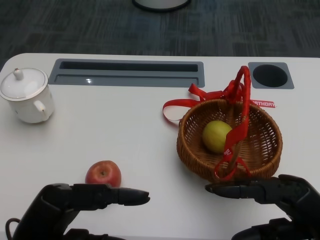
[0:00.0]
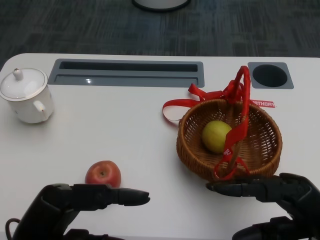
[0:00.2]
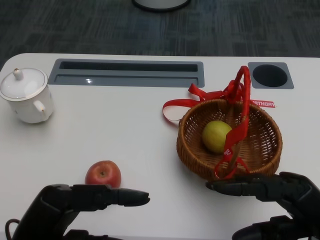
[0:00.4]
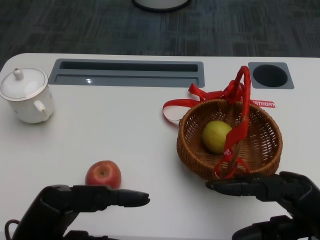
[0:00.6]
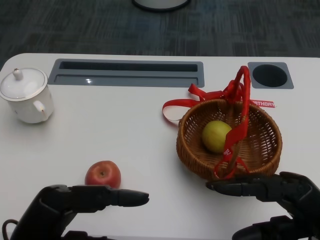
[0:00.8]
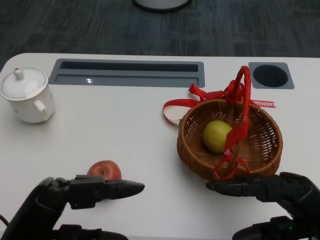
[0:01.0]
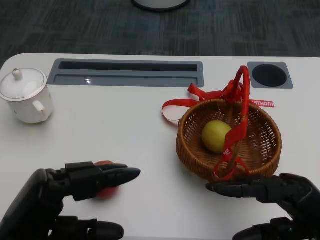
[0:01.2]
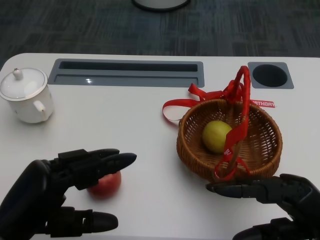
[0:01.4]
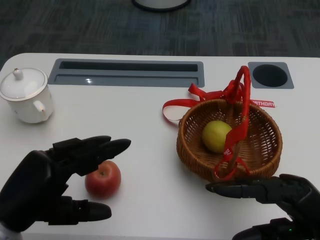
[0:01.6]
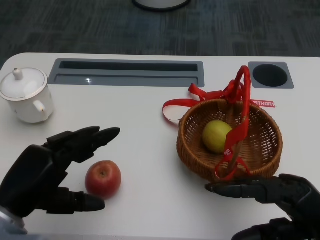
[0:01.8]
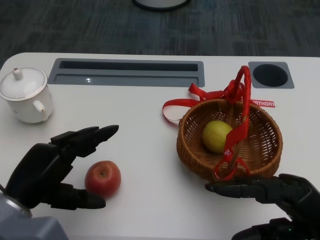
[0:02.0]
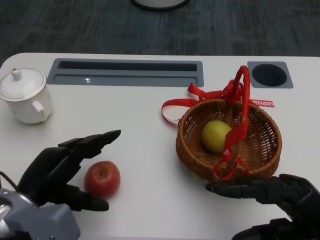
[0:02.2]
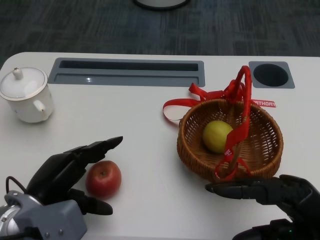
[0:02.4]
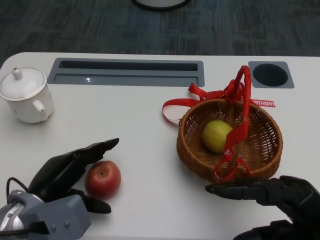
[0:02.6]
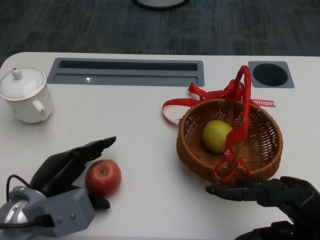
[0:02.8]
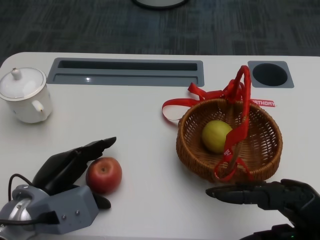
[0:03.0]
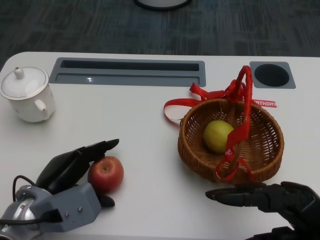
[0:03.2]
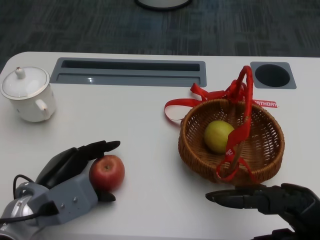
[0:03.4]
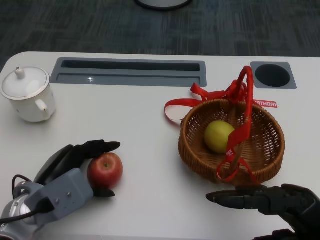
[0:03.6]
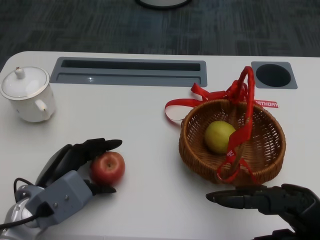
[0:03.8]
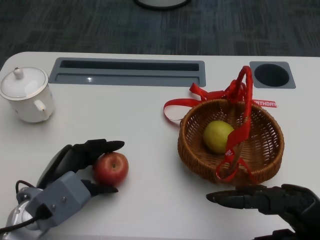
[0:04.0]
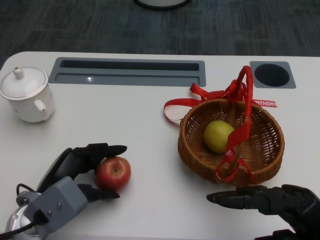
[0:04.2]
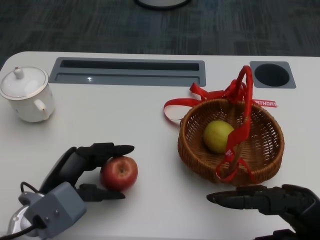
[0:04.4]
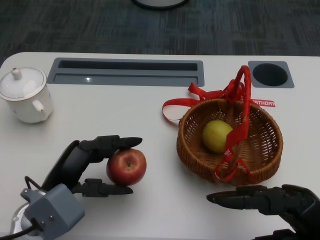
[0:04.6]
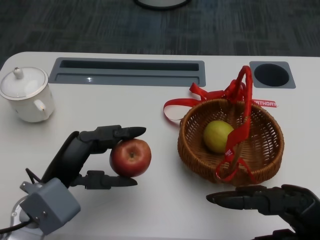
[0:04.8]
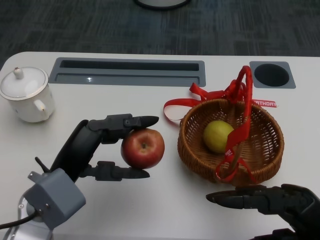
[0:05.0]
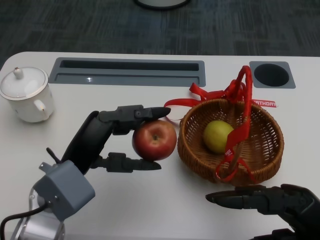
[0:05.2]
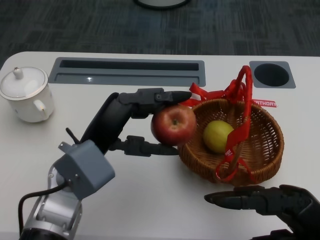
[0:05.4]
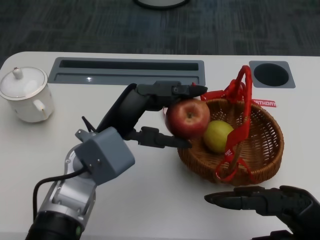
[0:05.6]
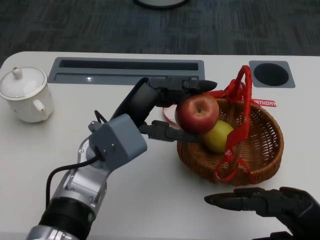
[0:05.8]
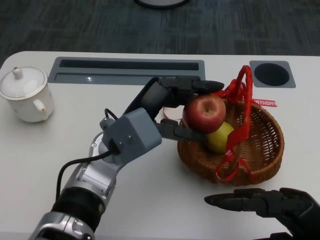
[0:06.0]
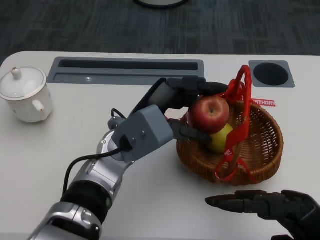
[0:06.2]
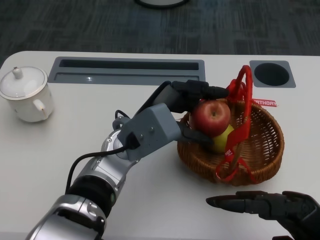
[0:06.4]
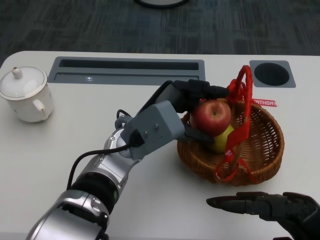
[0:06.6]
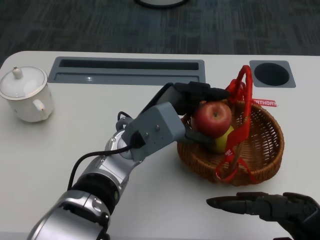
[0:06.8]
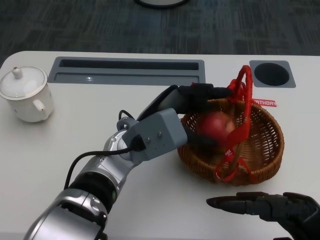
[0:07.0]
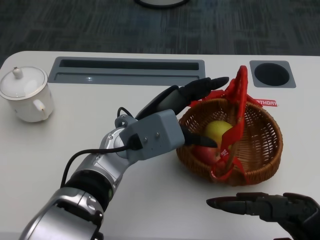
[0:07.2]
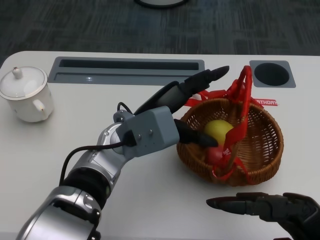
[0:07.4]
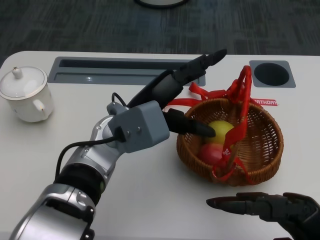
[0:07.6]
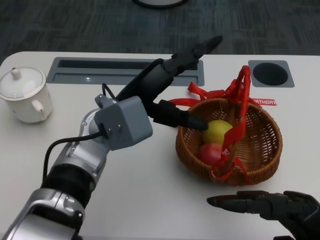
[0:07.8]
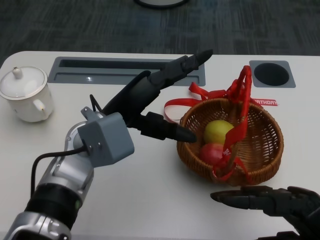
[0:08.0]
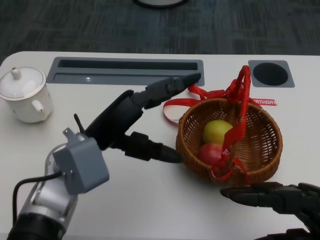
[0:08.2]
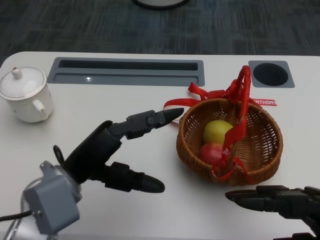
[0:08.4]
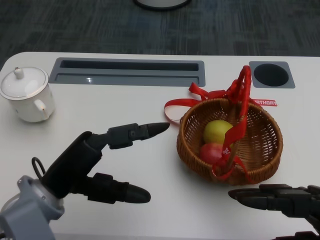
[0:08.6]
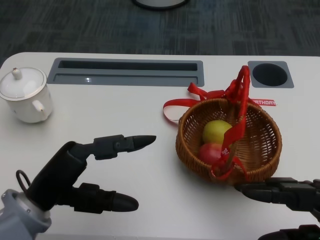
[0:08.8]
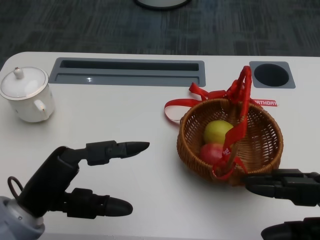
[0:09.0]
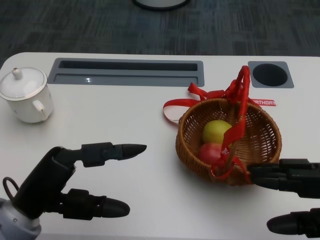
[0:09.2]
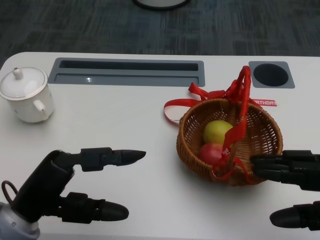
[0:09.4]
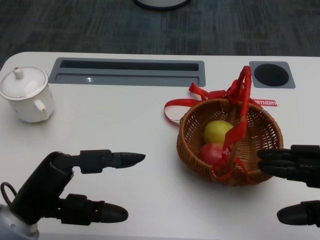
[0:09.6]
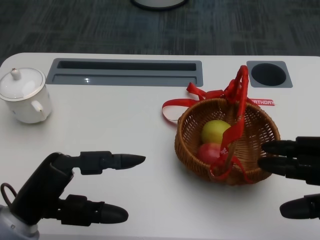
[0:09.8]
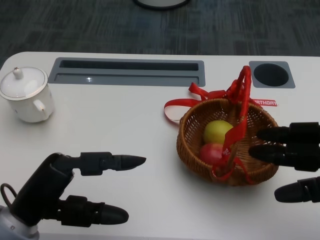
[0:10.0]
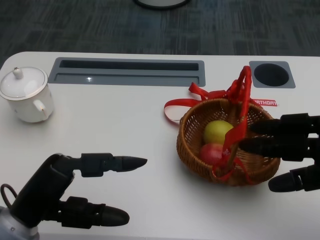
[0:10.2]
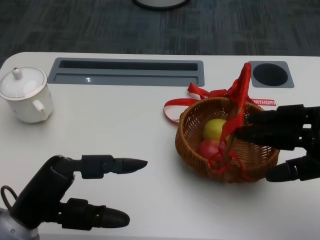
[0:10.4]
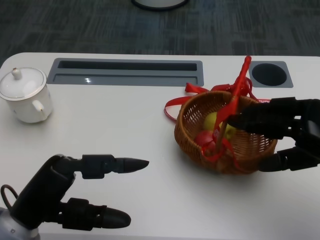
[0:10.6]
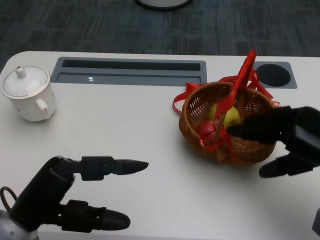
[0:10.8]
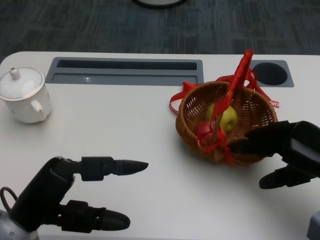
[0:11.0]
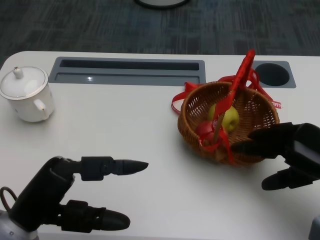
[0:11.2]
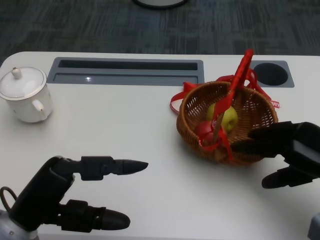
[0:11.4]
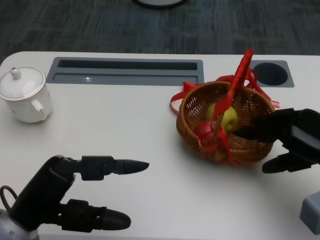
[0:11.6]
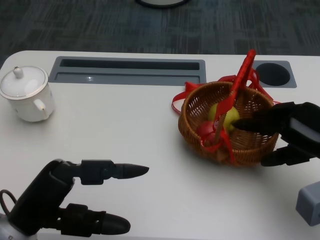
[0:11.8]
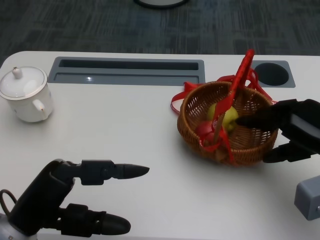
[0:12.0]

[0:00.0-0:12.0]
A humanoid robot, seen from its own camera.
Step, 0:00.8 to 0:03.0: Grasp the apple with the left gripper.
Step, 0:03.2 to 0:05.6: Place the apple into the basket with the left gripper.
Step, 0:06.0 to 0:10.2: Grasp the basket with the right gripper.
0:01.6 to 0:03.0: The left hand travels forward and downward by roughly 10 cm.
0:04.4 to 0:06.0: The left hand travels to the right, upward and forward by approximately 15 cm.
0:06.0 to 0:07.6: The hands move only a little.
0:07.6 to 0:09.0: The left hand travels to the left and backward by about 20 cm.
0:09.0 to 0:10.4: The right hand heads forward, covering roughly 10 cm.
0:10.4 to 0:12.0: The right hand shifts by approximately 5 cm.

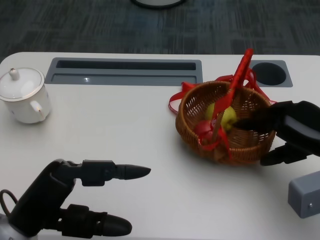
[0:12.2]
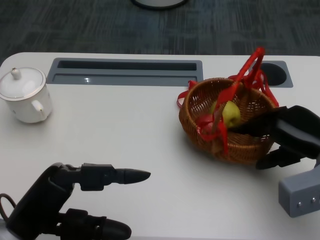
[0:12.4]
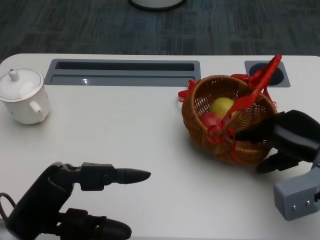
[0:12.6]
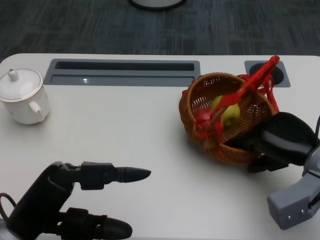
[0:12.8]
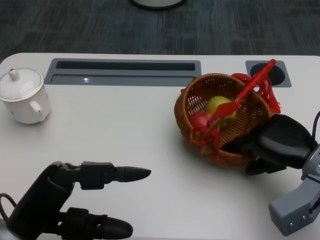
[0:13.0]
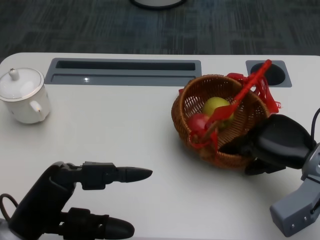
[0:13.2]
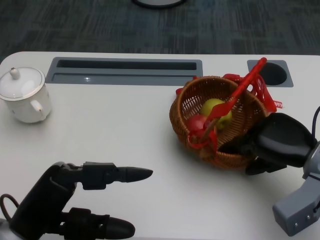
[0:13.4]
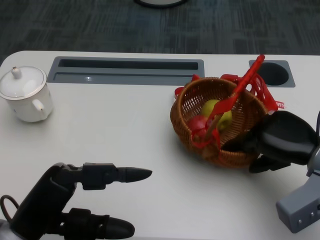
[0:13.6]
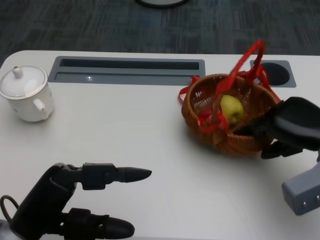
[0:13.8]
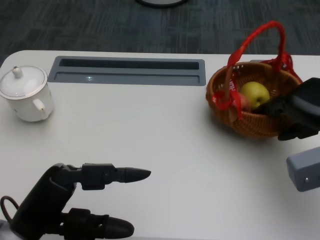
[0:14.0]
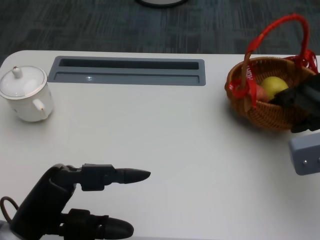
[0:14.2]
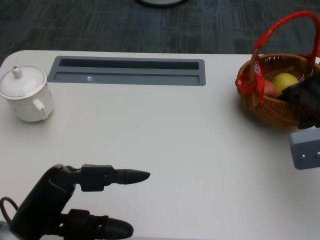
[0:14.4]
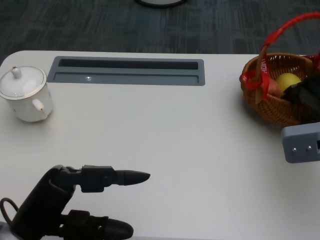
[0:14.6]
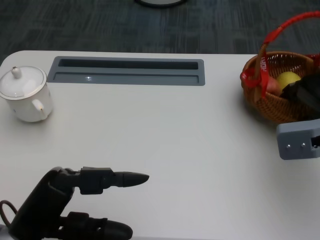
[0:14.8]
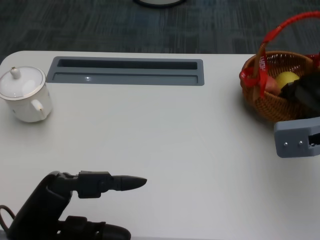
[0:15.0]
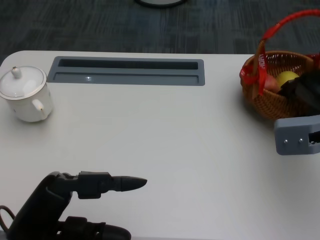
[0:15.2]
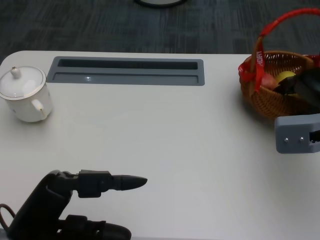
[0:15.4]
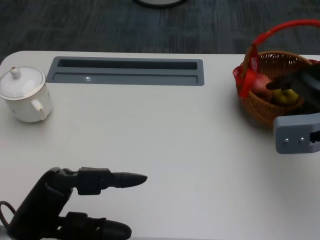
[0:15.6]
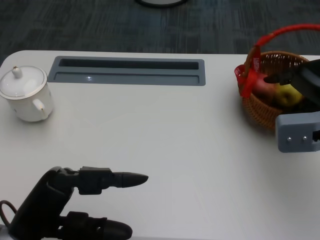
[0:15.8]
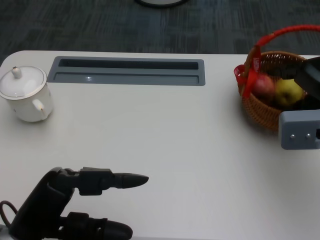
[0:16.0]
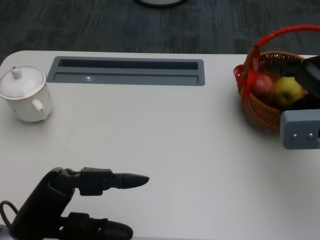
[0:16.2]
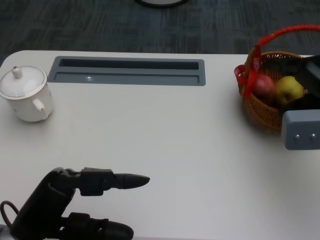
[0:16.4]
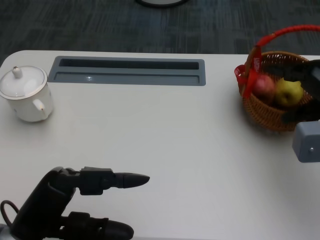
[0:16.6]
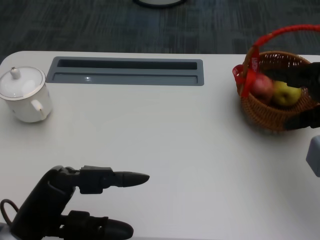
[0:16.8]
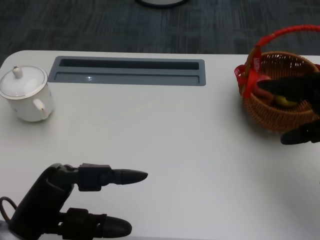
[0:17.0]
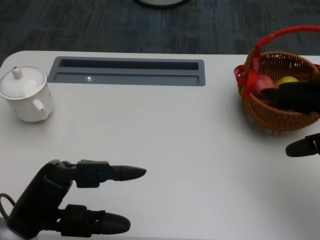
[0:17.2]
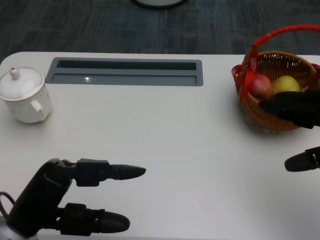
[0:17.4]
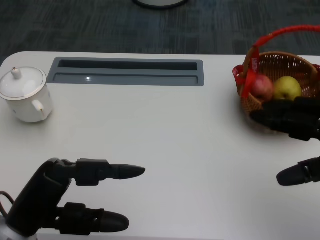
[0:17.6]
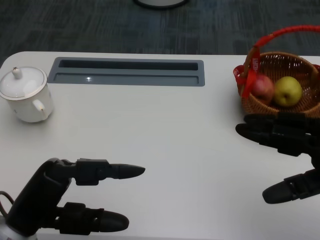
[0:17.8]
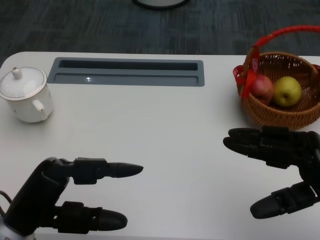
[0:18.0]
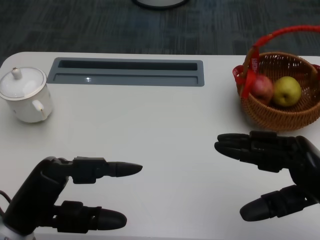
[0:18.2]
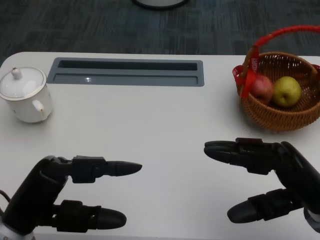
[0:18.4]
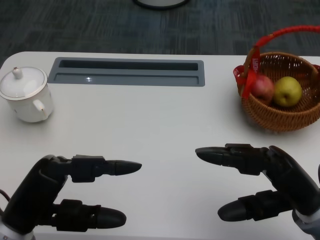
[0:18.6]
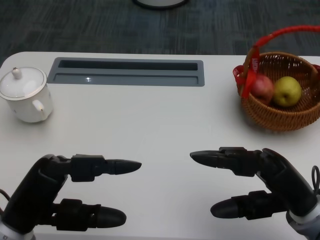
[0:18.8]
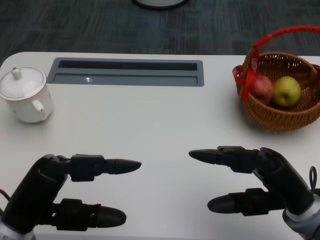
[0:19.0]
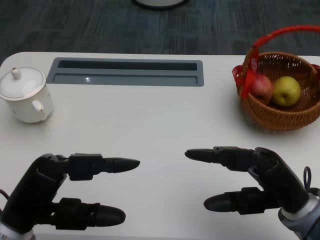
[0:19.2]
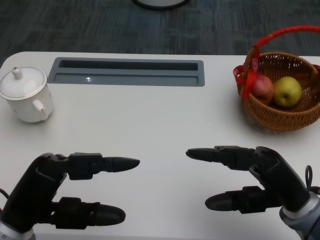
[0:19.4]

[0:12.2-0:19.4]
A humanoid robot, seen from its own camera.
0:12.2 to 0:13.6: The hands move only a little.
0:13.6 to 0:15.0: The right hand moves about 5 cm.
0:16.6 to 0:18.0: The right hand goes some 10 cm backward.
0:18.0 to 0:19.4: The right hand moves to the left, approximately 5 cm.

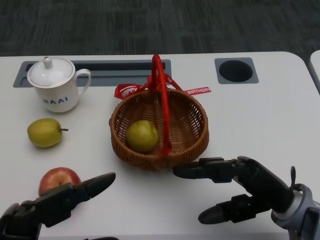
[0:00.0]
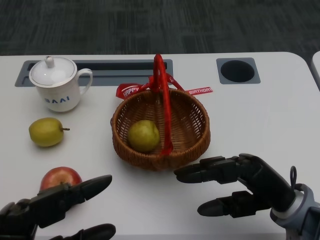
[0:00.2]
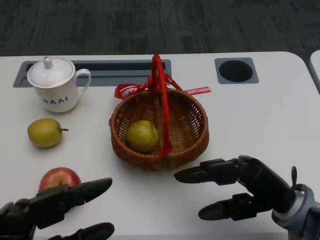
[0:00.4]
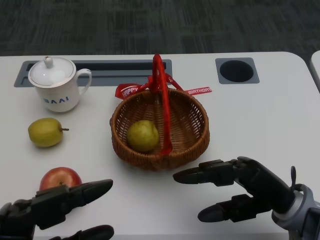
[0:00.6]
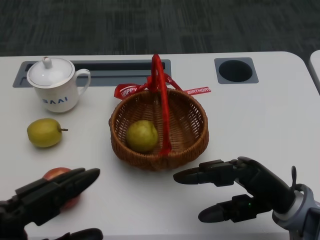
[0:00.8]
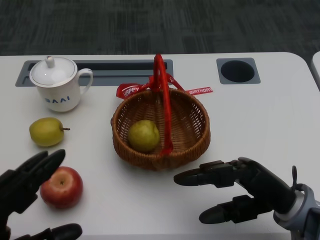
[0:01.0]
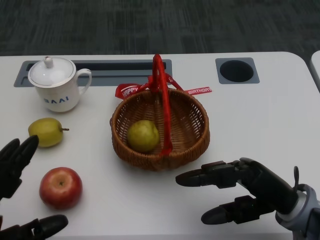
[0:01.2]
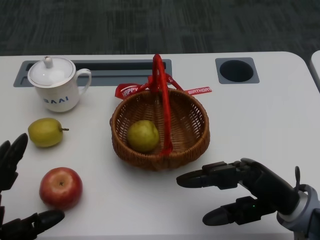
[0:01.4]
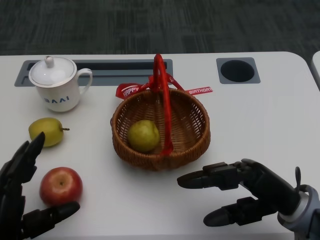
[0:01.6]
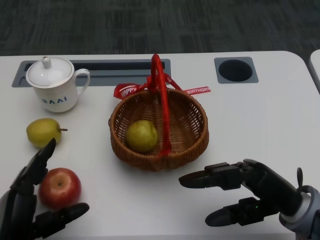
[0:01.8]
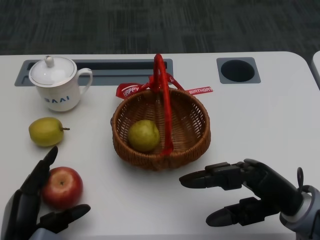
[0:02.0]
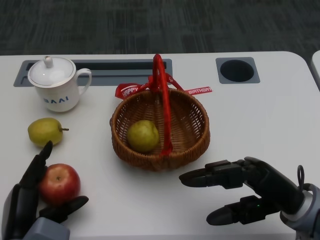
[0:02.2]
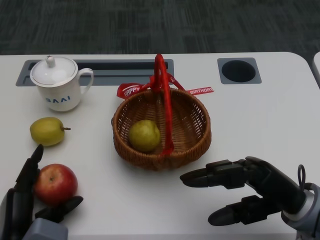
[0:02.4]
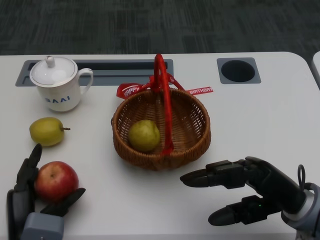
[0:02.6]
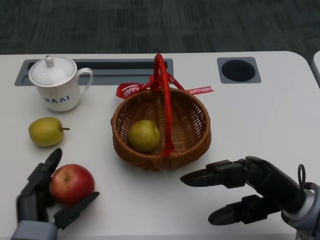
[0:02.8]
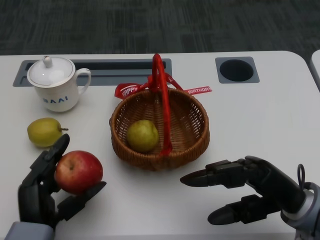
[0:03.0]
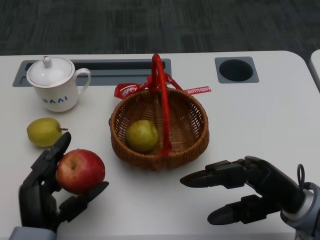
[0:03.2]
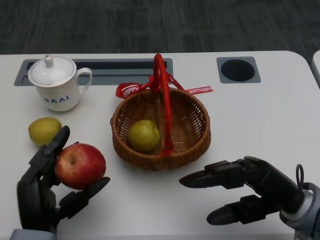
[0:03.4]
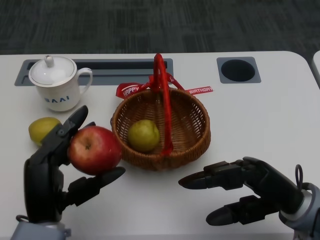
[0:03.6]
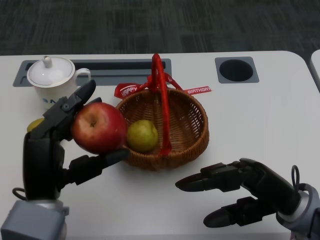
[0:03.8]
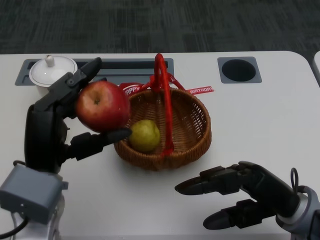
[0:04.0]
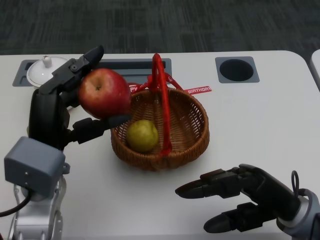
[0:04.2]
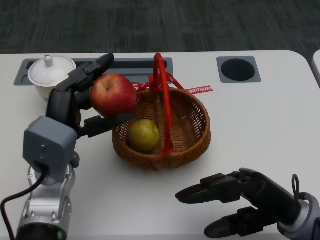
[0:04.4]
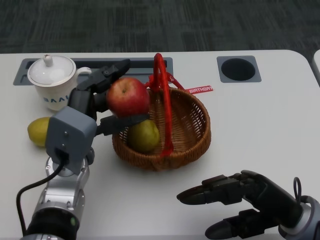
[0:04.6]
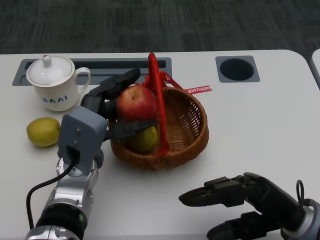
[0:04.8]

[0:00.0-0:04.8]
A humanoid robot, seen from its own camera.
Step, 0:00.0 to 0:02.2: Grasp the apple with the left gripper.
Step, 0:02.4 to 0:04.4: Place the apple into the basket with the left gripper.
0:01.6 to 0:03.2: The left hand heads to the right, covering some 5 cm.
0:03.2 to 0:04.8: The left hand heads forward and upward, covering approximately 15 cm.
